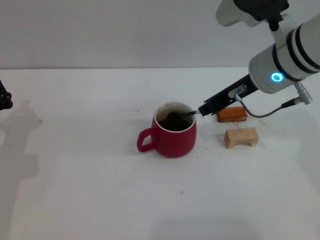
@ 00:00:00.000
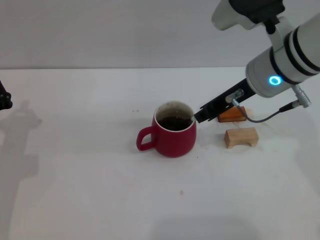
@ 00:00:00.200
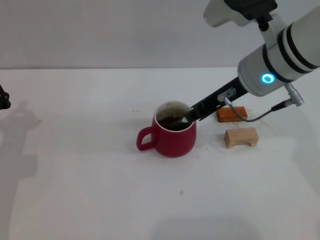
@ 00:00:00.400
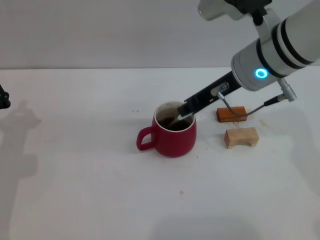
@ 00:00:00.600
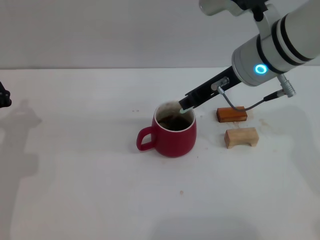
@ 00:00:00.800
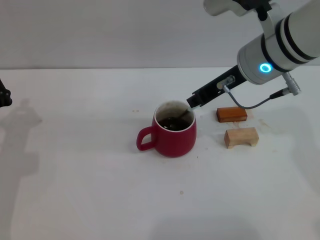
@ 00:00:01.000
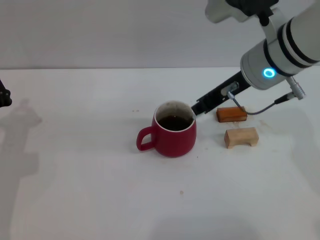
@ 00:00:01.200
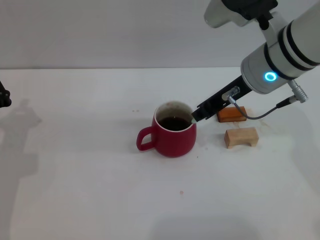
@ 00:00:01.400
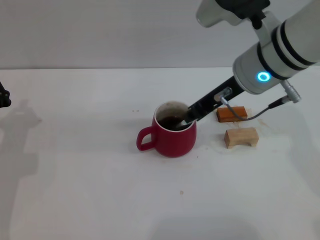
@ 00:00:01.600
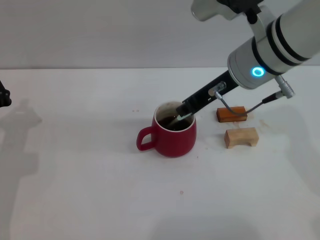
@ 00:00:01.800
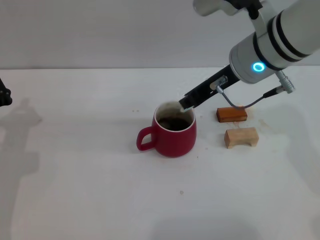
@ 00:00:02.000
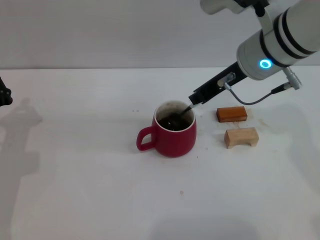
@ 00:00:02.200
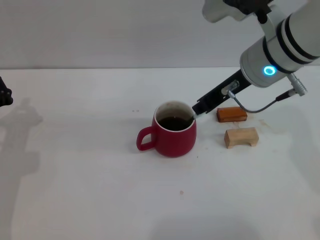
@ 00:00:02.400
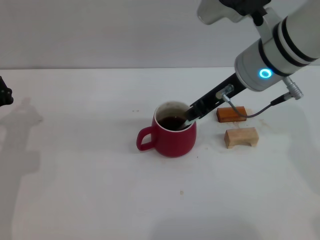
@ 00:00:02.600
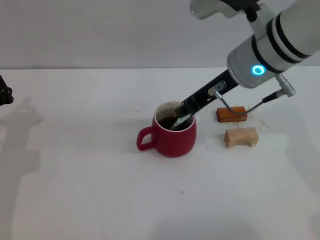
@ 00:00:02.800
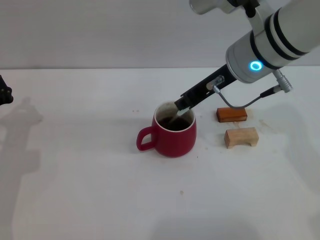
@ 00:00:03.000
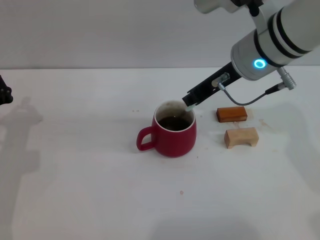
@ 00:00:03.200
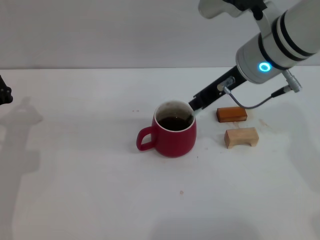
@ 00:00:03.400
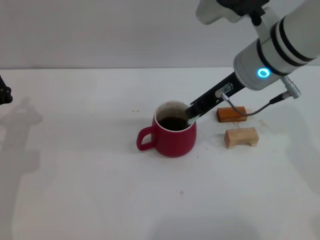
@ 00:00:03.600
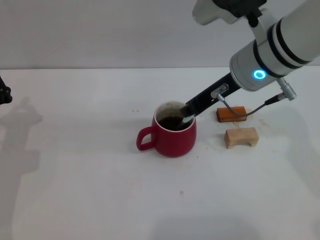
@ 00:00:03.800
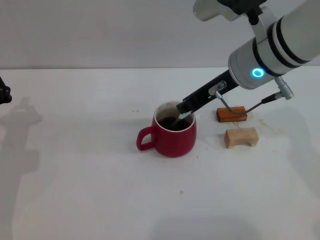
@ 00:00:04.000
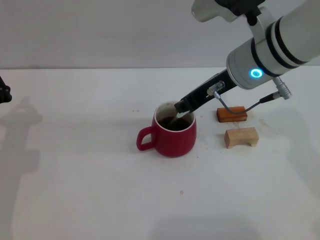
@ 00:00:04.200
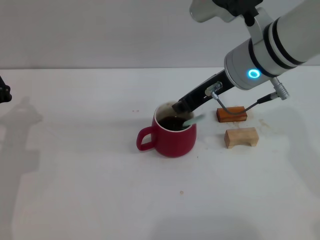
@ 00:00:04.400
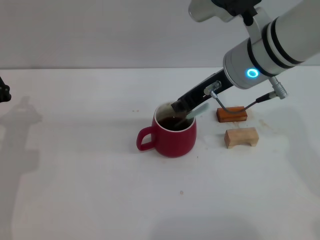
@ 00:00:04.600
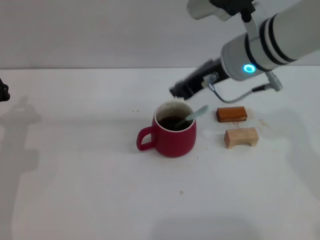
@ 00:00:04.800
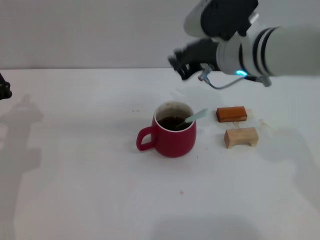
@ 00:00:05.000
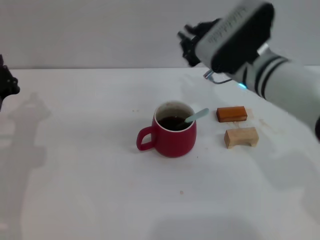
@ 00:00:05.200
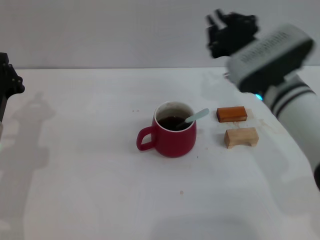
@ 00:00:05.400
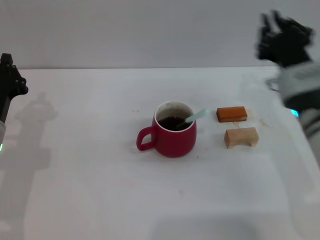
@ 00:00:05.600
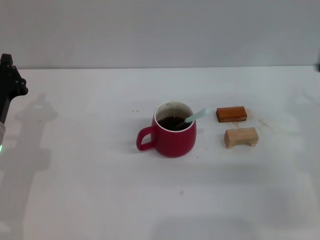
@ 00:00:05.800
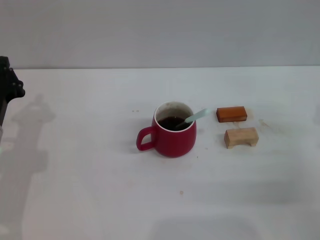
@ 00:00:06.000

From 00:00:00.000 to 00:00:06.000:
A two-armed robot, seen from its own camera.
Task of the whole recording: Move the red cup to the center, lift the blue spoon, stir it three times in the cup, and put the spoon into the cup.
Step, from 00:00:00.000 to 00:00:04.400: Stir the coffee with right gripper.
From 00:00:00.000 to 00:00:03.000: The grippers make only small movements.
From 00:00:03.000 to 00:00:04.400: Neither gripper changes place.
From 00:00:04.400 to 00:00:06.000: The right gripper goes about 25 cm to the right, downward and backward.
